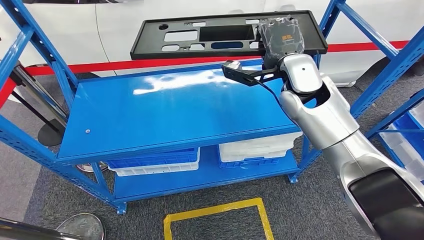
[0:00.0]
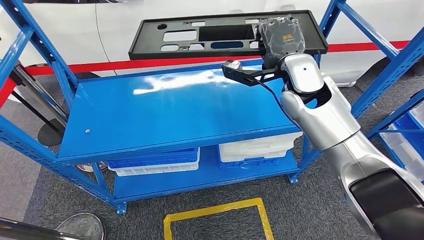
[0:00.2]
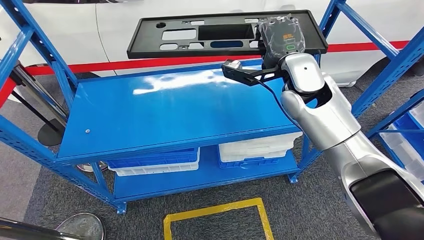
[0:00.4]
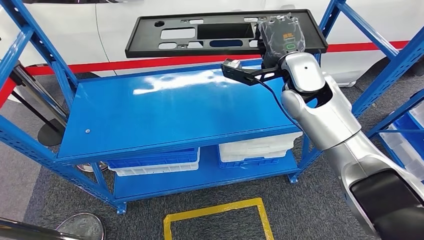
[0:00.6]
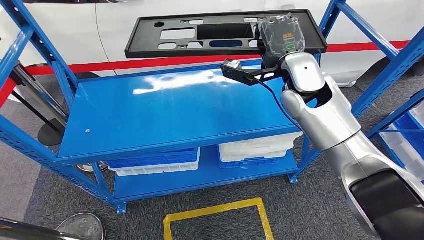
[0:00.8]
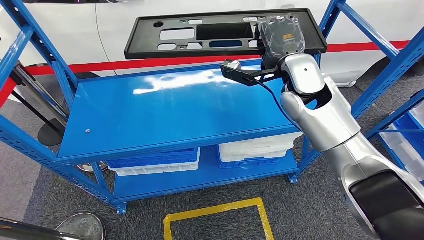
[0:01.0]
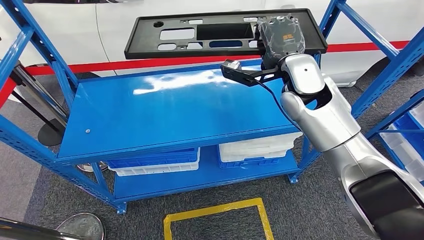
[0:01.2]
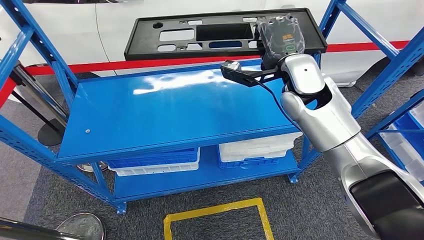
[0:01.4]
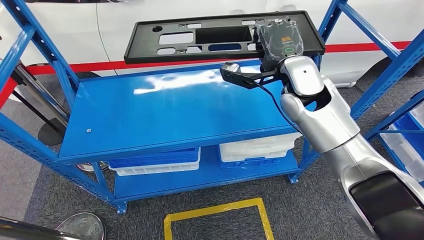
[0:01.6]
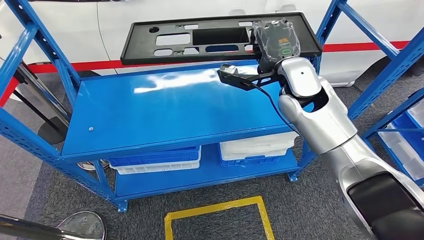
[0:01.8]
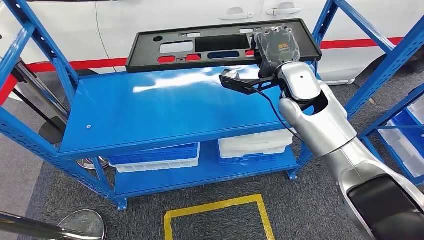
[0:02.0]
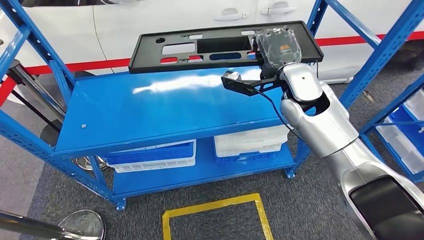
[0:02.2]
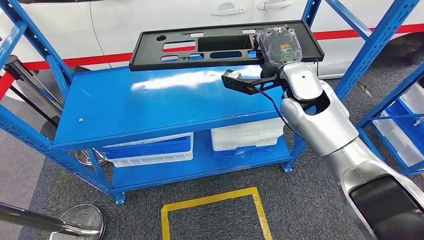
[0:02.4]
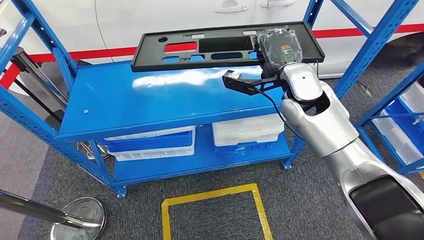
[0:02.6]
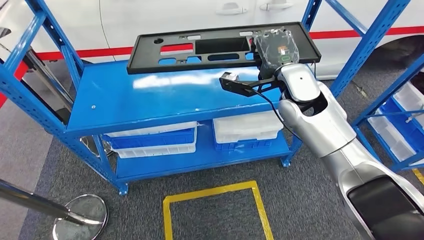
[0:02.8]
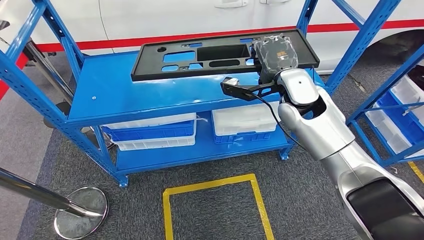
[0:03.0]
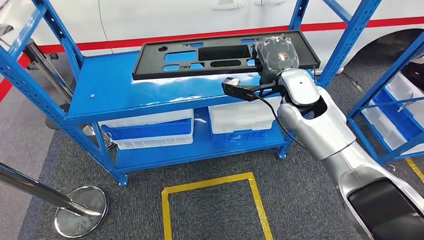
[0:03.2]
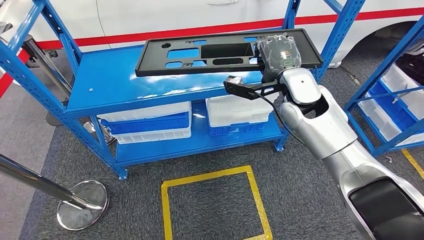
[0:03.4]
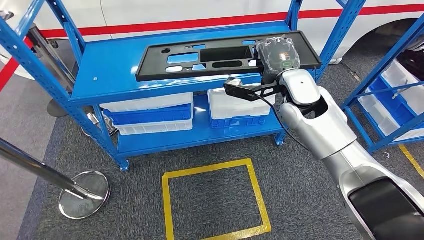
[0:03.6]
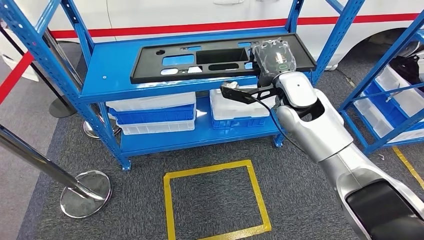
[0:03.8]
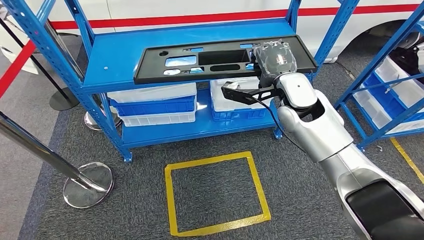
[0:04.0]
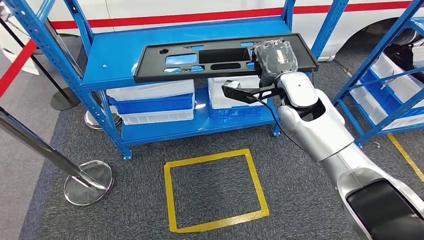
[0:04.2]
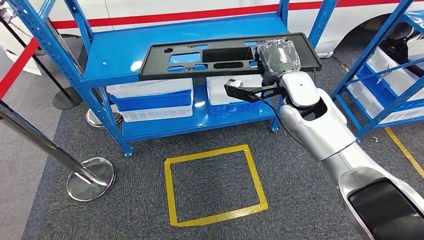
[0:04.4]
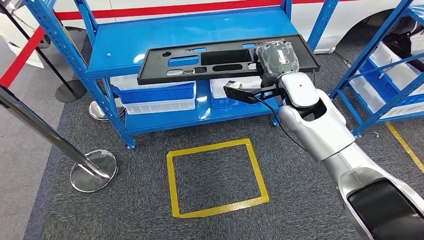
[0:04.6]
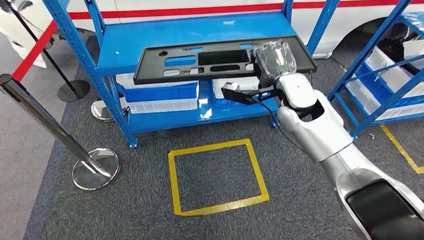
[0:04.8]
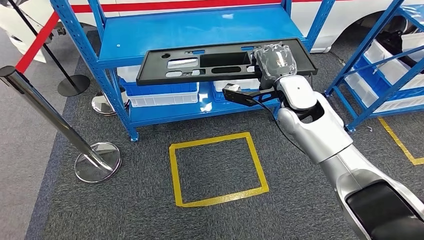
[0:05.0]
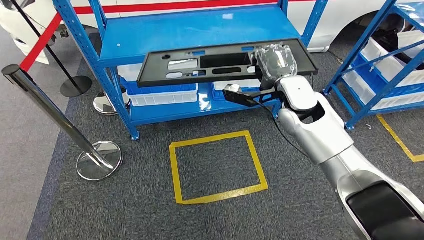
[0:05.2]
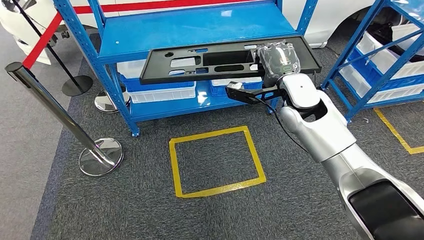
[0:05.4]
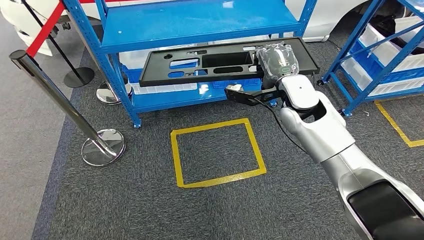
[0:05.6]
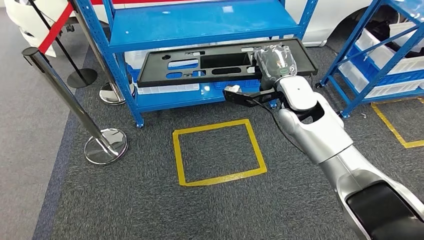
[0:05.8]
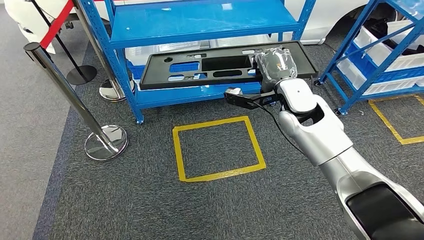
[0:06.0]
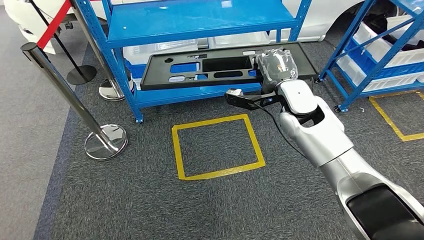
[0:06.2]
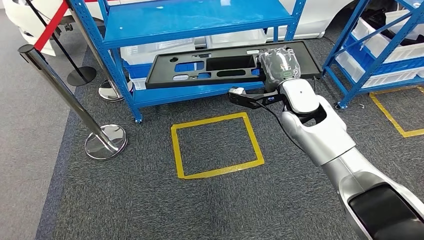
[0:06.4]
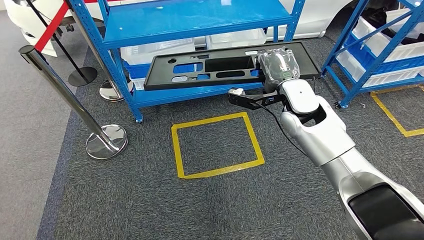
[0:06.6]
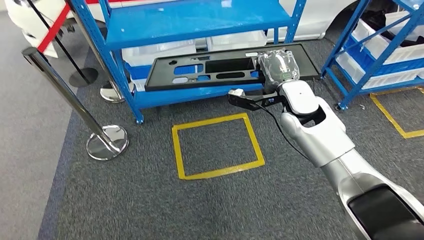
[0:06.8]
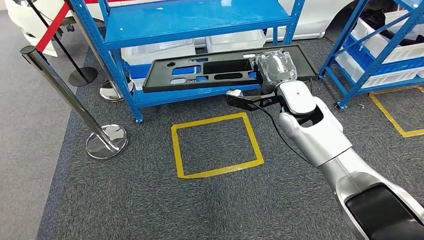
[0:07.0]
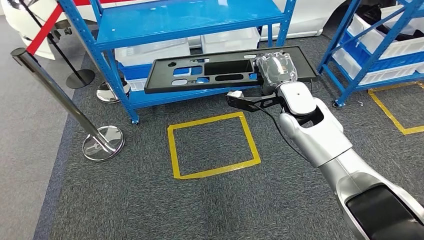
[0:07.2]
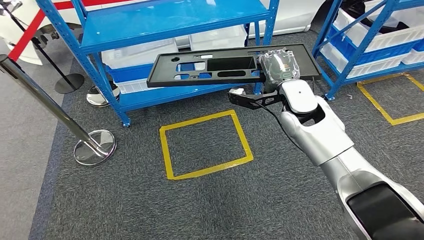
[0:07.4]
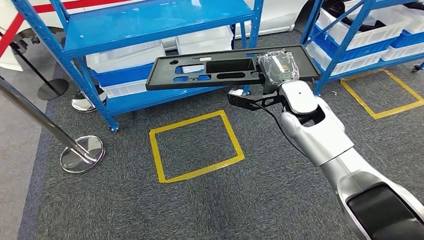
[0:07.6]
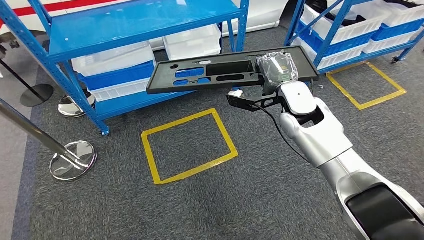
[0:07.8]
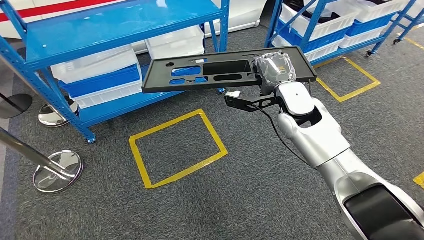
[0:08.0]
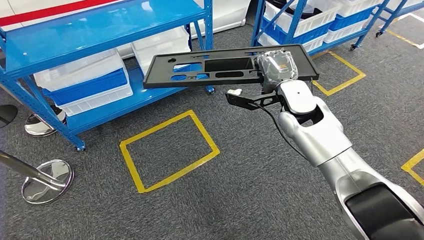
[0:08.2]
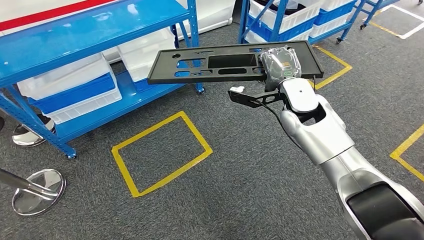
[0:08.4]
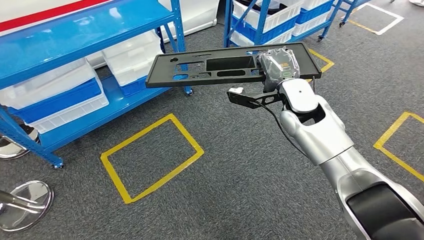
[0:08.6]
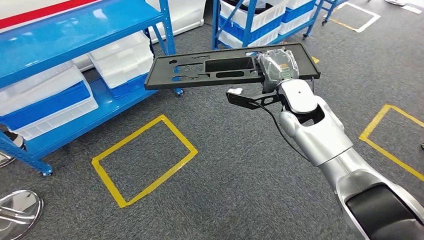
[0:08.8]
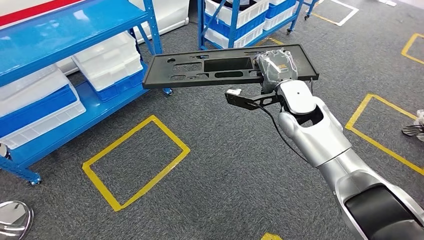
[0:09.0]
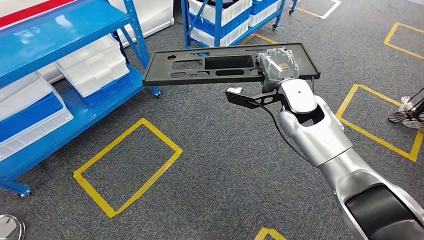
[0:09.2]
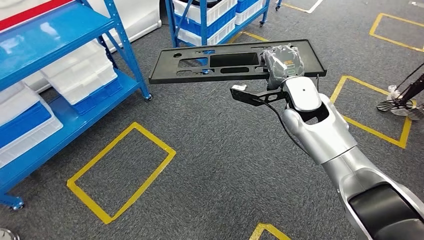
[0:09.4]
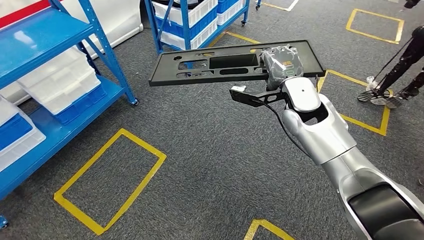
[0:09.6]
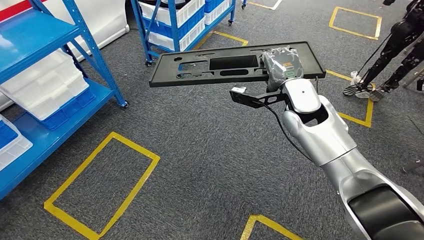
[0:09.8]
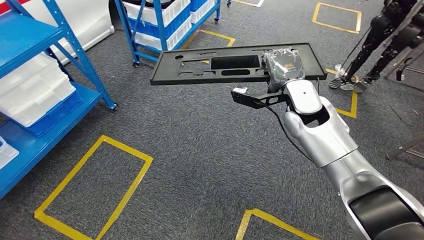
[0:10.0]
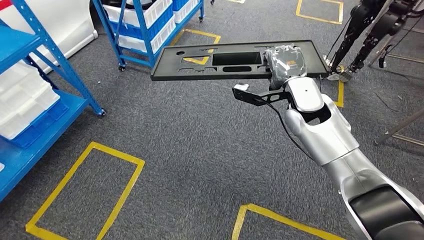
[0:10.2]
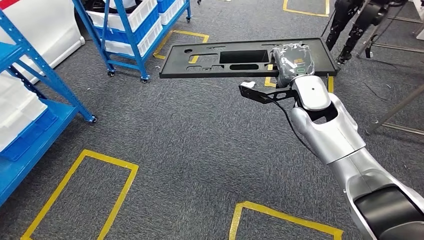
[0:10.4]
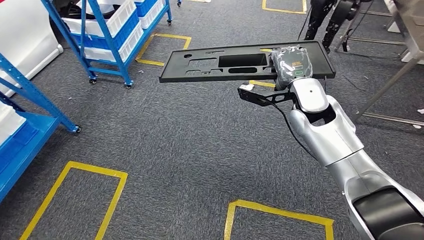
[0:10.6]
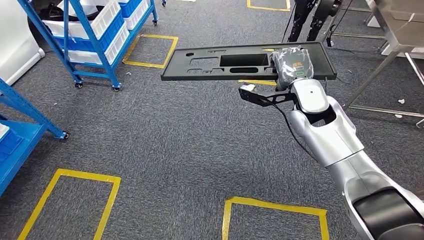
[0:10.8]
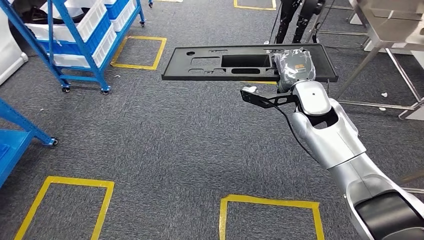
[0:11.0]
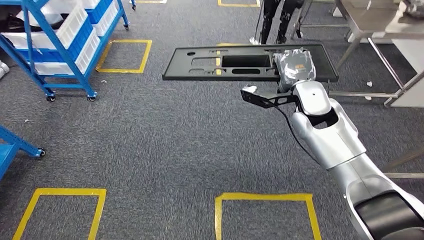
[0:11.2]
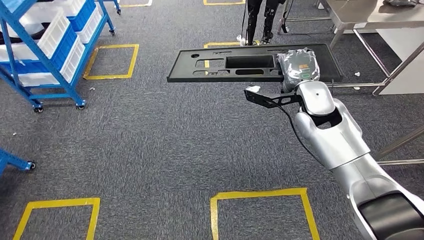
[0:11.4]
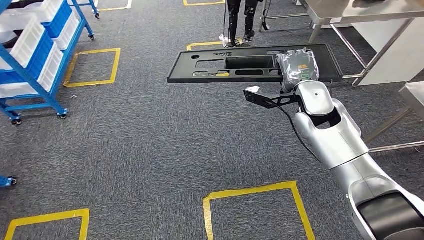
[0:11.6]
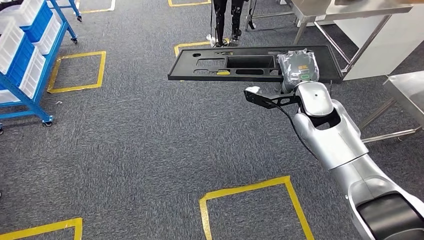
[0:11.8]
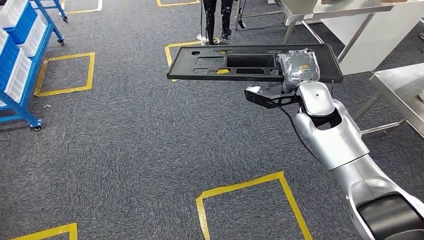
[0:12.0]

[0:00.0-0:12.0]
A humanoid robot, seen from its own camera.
0:00.0 to 0:01.6: The hands stay close to where they were, moving slightly.

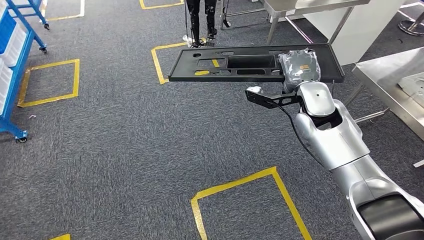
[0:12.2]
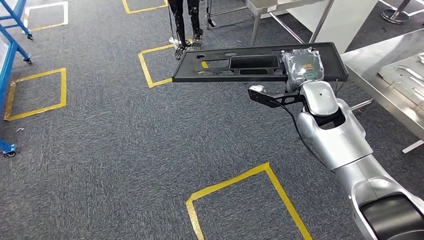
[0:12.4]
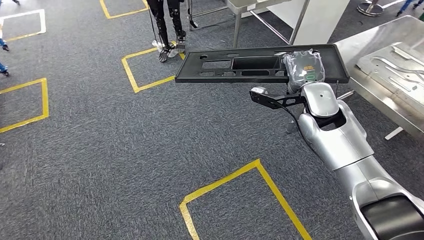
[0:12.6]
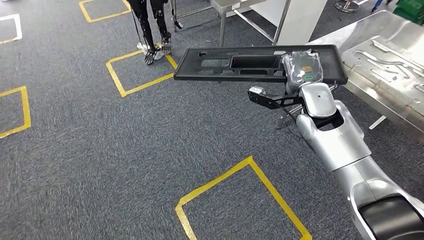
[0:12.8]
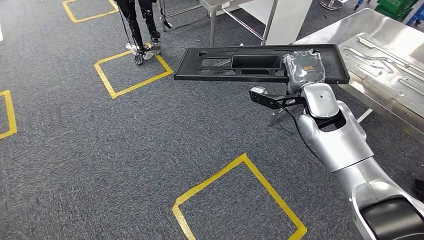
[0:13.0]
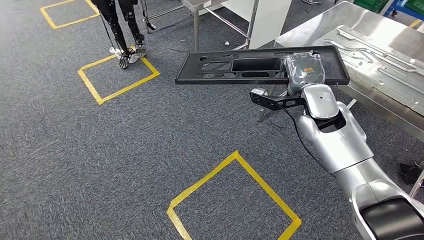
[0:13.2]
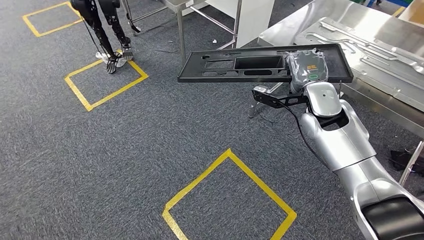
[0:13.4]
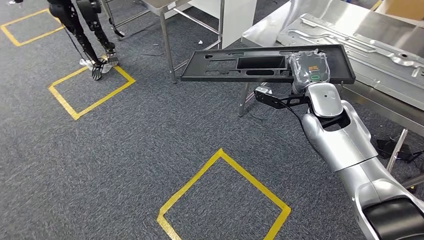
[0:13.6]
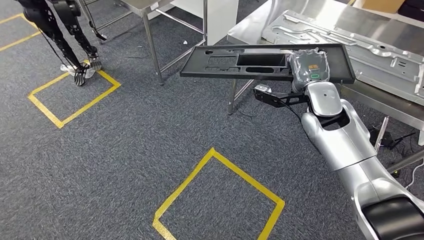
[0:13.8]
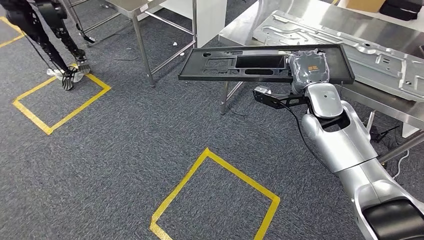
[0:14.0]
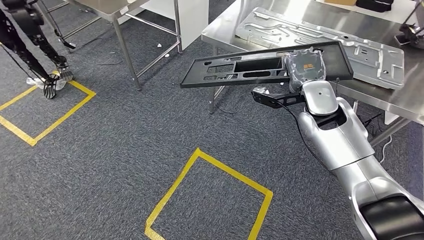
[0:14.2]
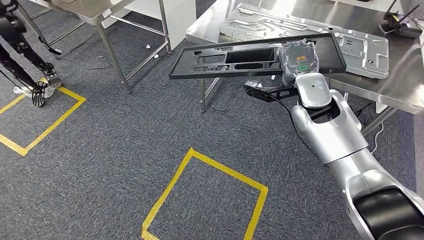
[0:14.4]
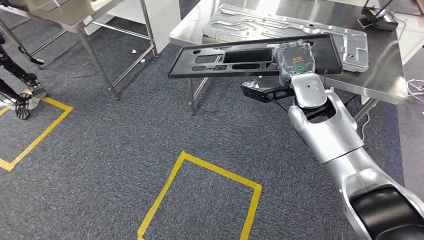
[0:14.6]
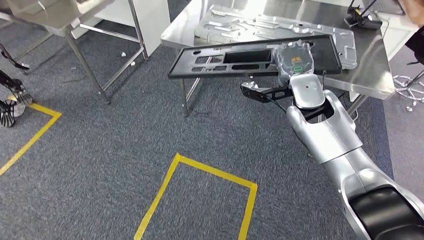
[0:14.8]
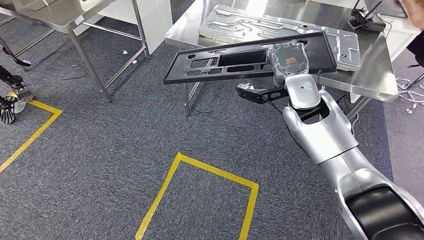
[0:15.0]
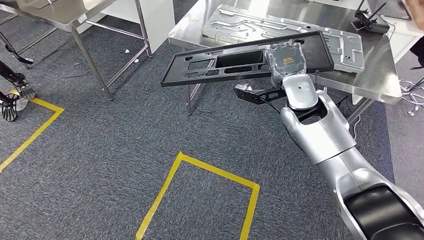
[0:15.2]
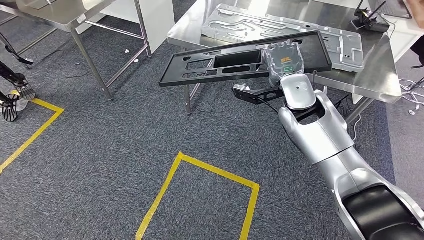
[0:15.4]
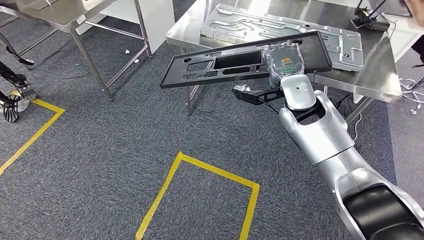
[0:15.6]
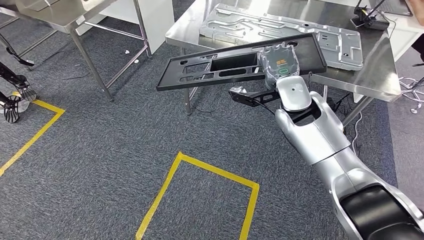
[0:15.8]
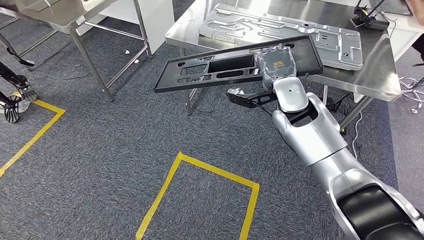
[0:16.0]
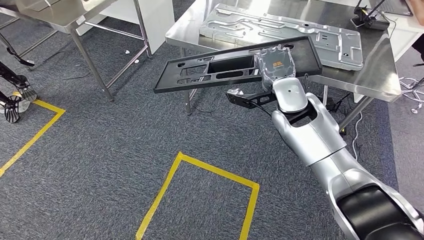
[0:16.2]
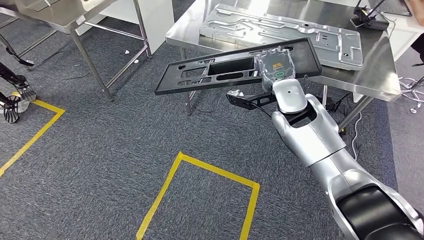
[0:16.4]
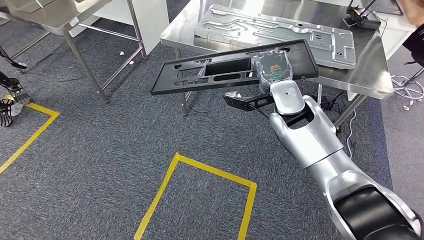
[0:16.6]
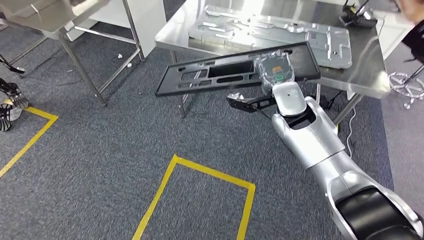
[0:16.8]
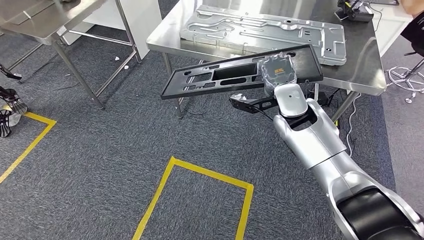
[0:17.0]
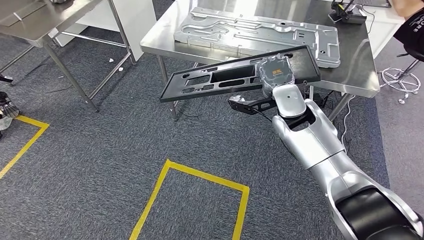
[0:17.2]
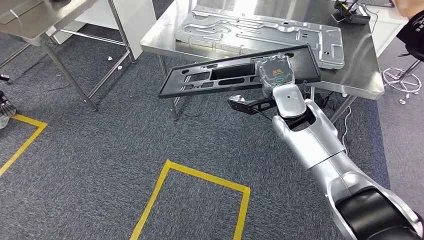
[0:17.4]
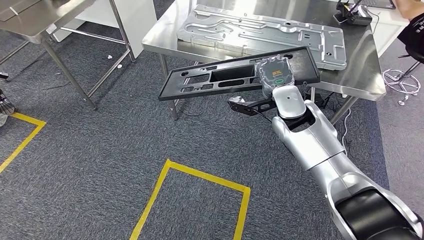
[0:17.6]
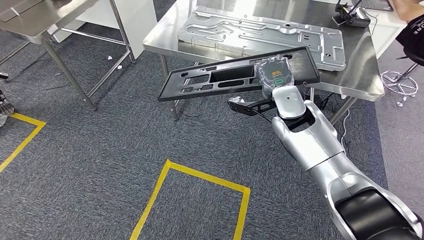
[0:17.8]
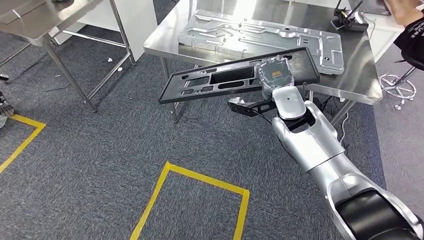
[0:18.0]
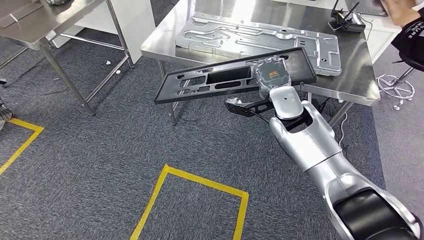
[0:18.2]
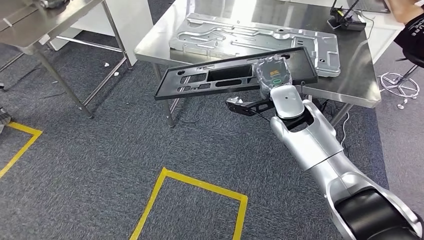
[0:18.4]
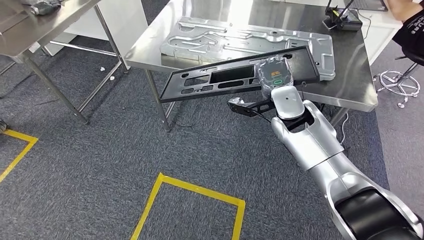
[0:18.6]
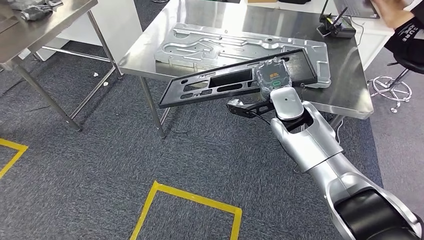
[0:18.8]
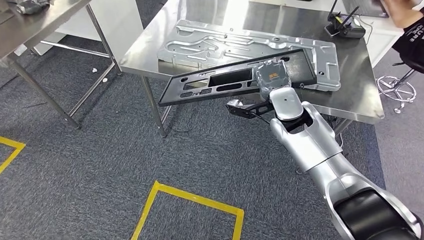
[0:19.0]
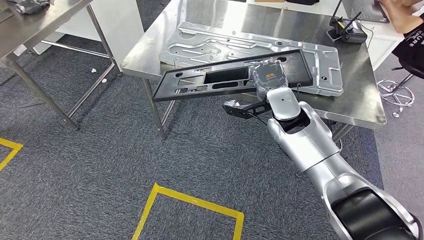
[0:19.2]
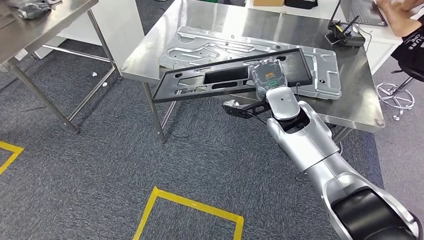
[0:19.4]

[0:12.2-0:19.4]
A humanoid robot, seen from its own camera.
Step, 0:12.2 to 0:16.4: Move the large material to the workbench.
